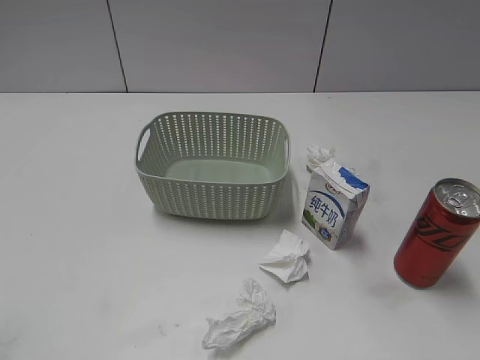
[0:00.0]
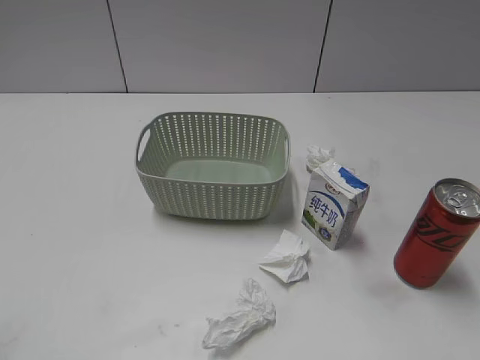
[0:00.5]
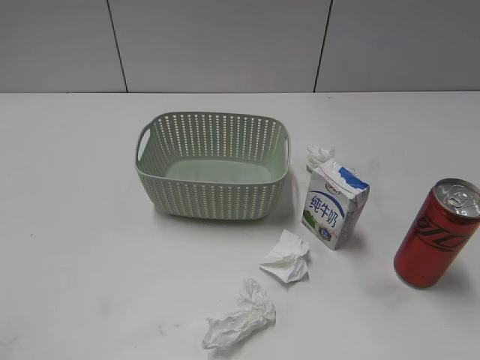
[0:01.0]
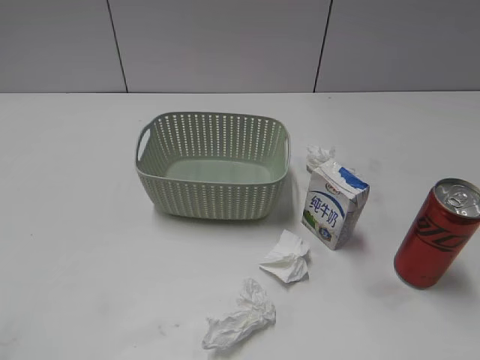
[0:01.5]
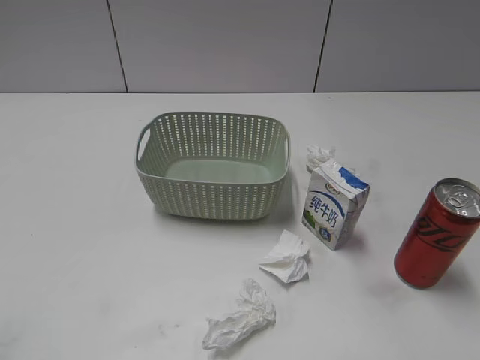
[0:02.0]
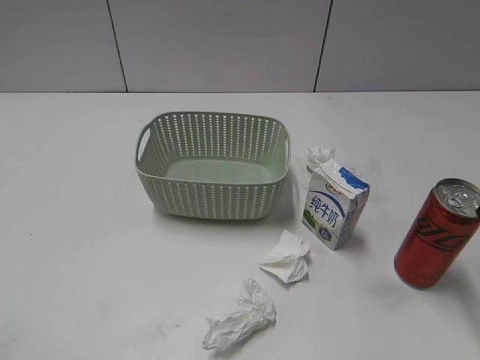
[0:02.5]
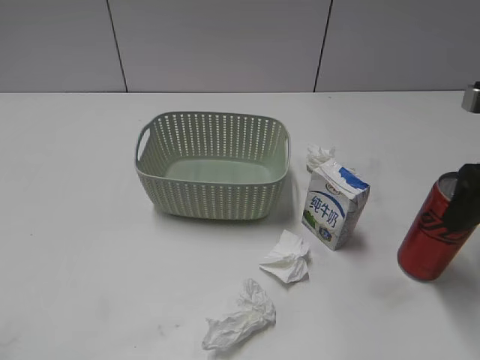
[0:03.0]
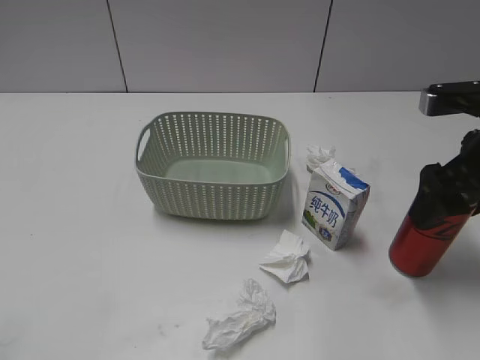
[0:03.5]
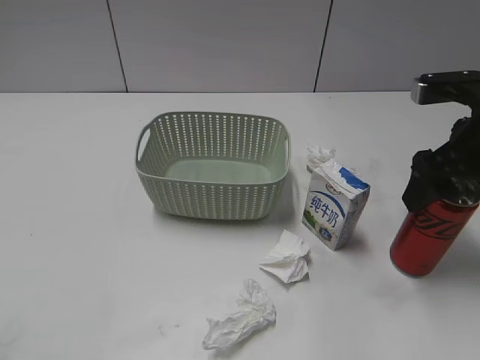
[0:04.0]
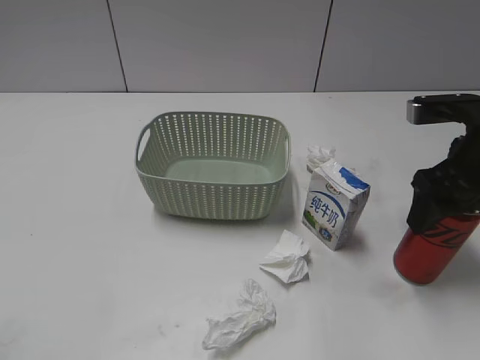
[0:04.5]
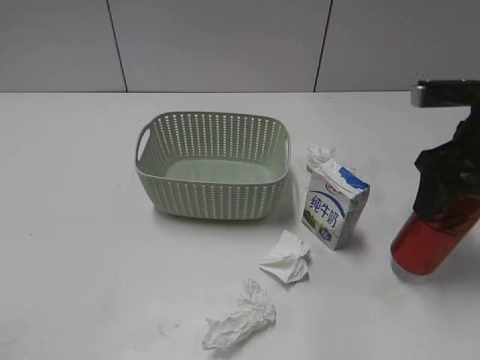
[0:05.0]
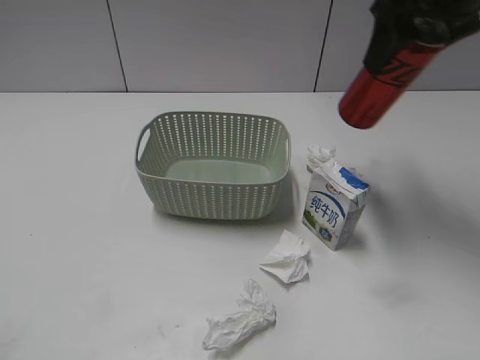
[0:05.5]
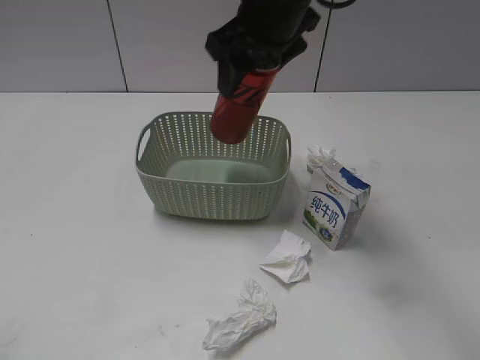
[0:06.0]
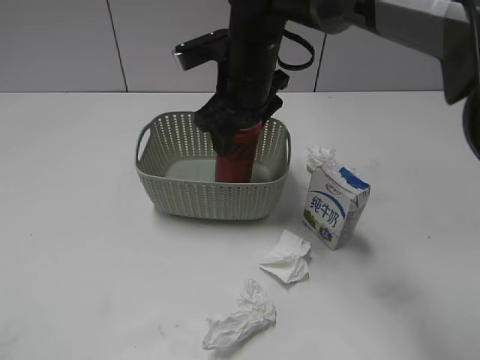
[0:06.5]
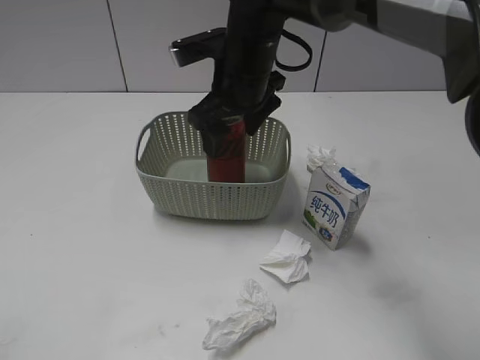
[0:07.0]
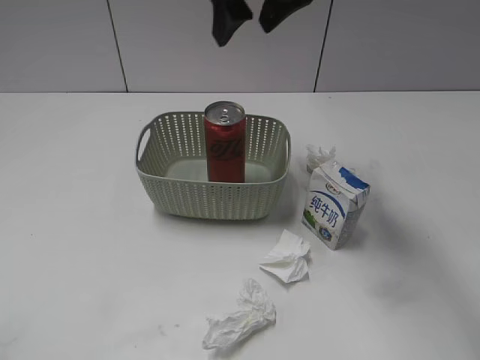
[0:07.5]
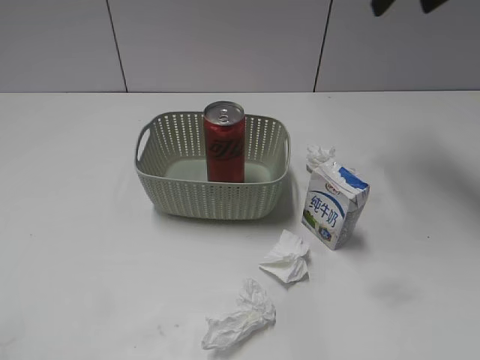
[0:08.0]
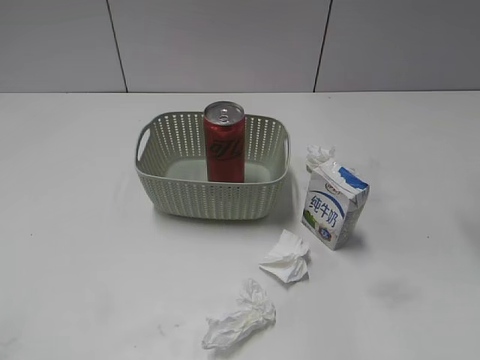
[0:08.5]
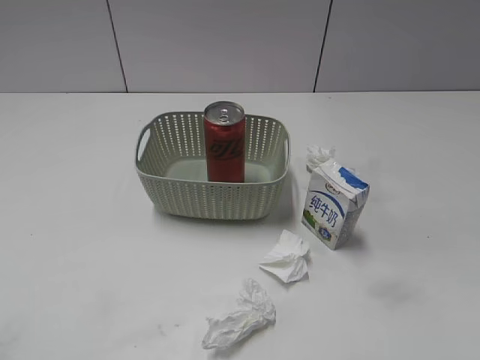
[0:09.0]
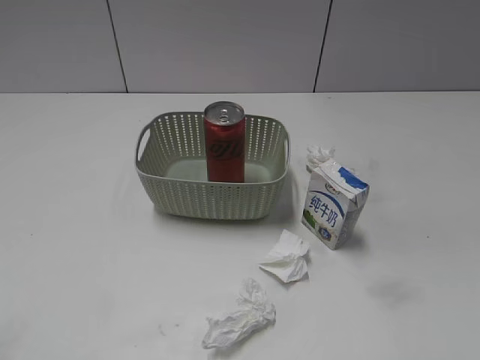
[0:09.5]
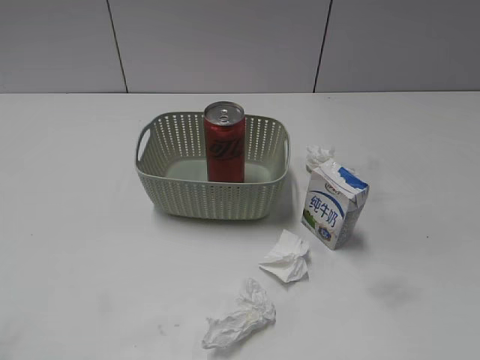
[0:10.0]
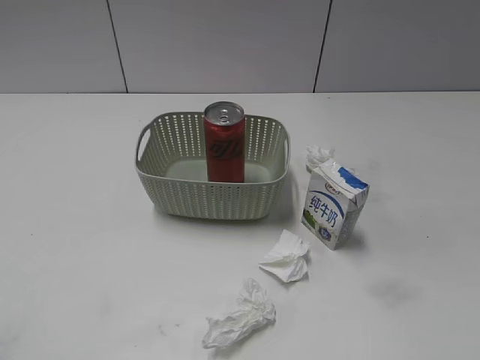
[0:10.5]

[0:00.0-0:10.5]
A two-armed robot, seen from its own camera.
Step, 0:03.0 to 0:04.5: Grasp the cola can with right gripper.
Step, 0:05.0 to 0:07.0: Place the cola can in the basket with right gripper.
0:02.0 to 0:04.0: The right gripper shifts about 15 cm forward.
0:04.0 to 0:06.5: The right gripper moves to the left and forward, some 25 cm, and closes up.
0:06.5 to 0:08.5: The right gripper goes approximately 30 cm to the right and upward, and opens.

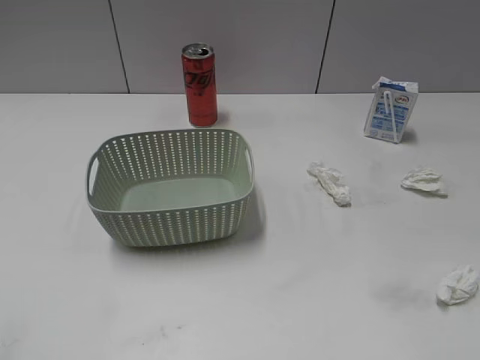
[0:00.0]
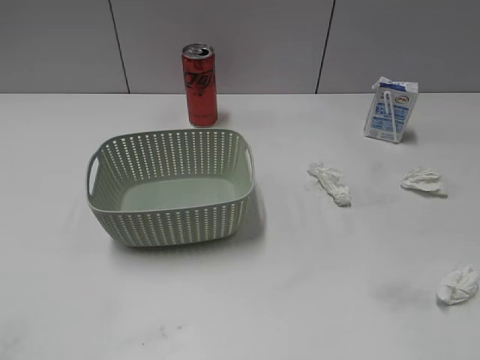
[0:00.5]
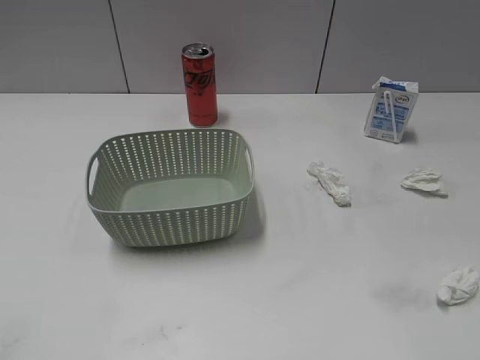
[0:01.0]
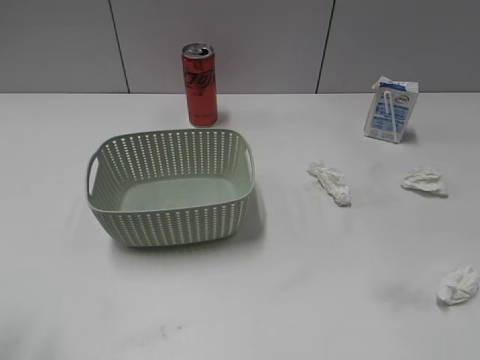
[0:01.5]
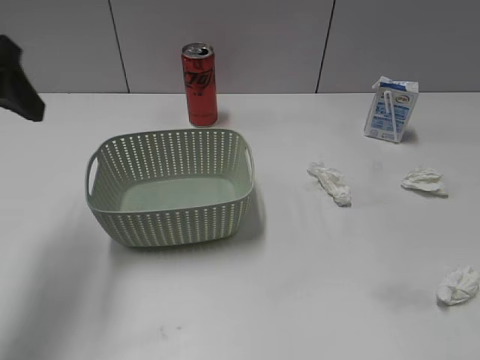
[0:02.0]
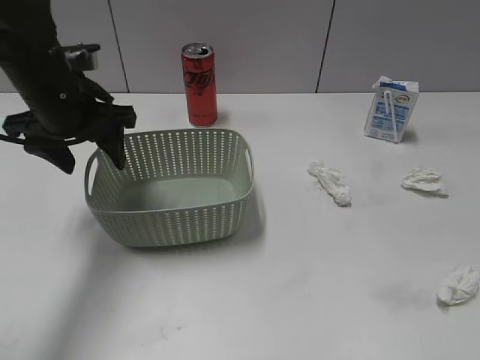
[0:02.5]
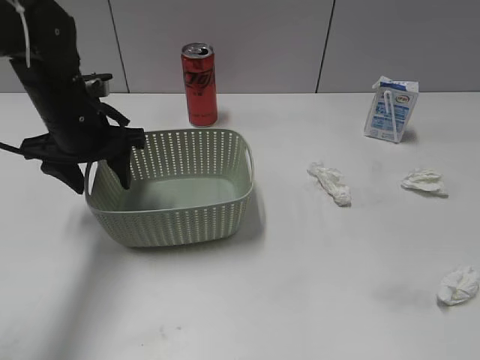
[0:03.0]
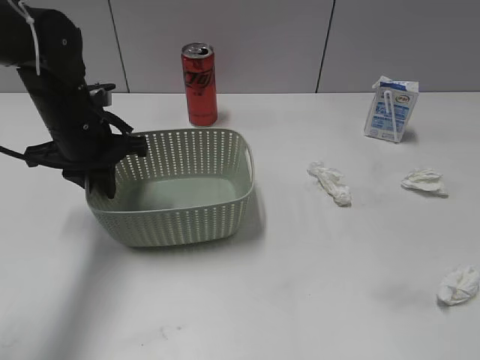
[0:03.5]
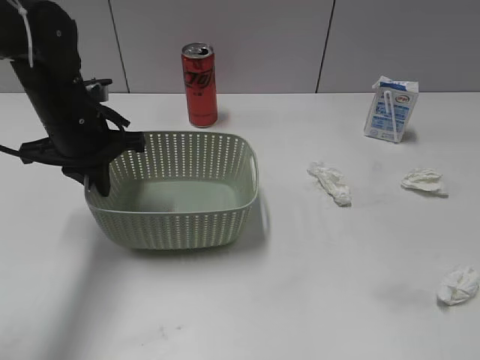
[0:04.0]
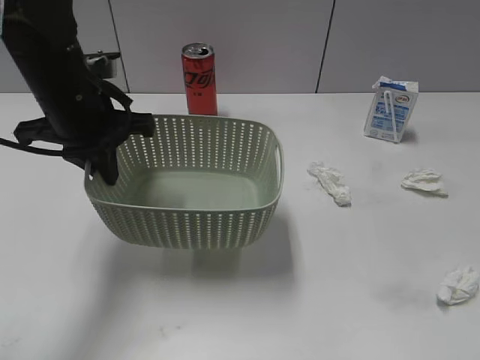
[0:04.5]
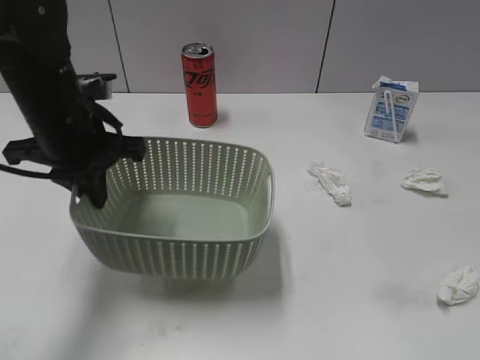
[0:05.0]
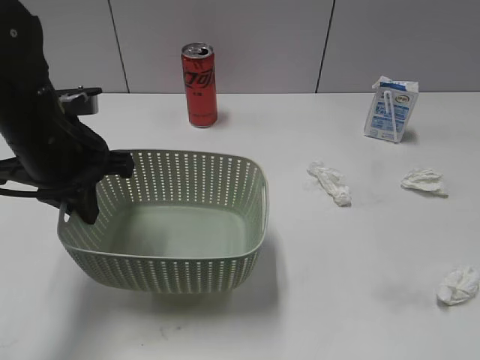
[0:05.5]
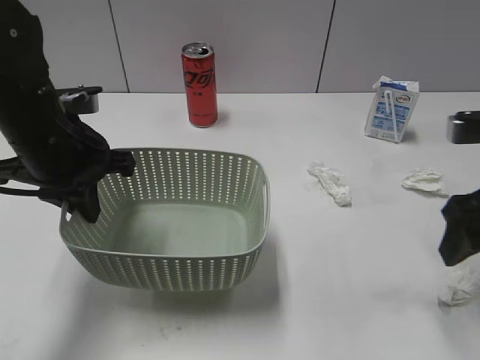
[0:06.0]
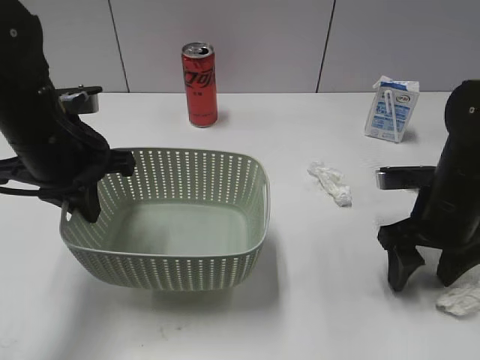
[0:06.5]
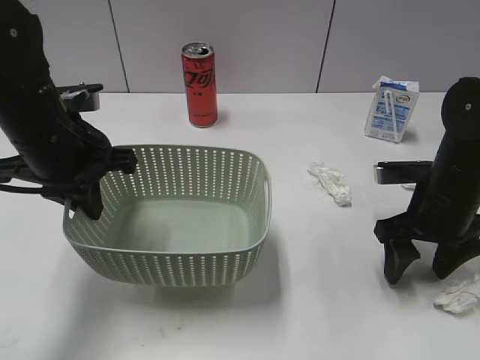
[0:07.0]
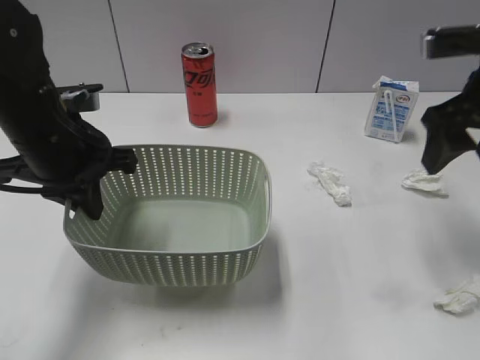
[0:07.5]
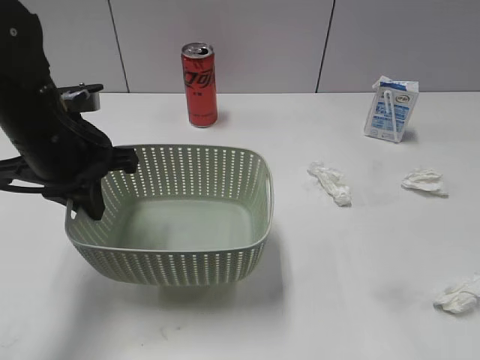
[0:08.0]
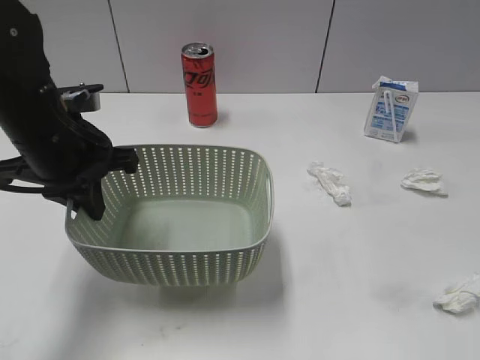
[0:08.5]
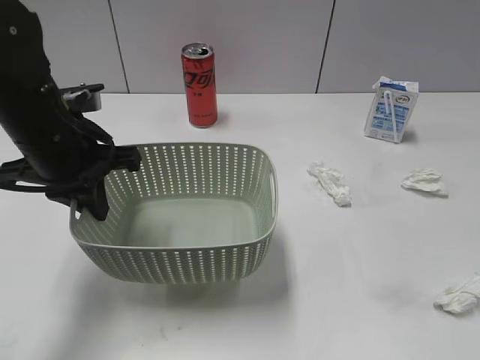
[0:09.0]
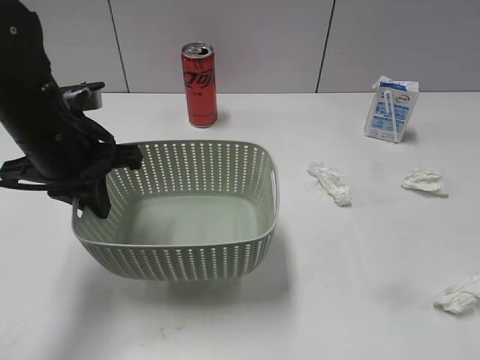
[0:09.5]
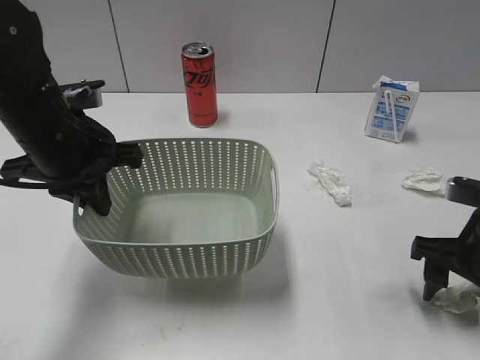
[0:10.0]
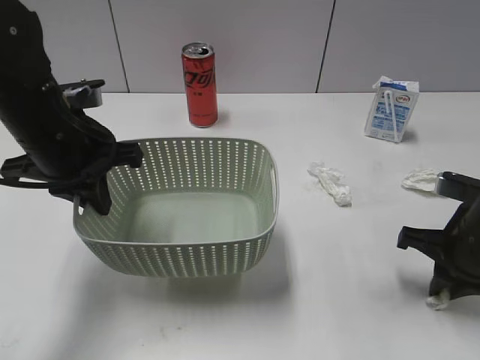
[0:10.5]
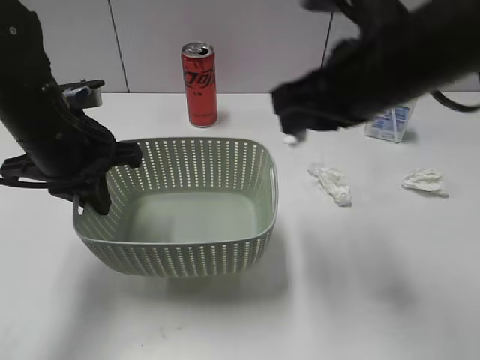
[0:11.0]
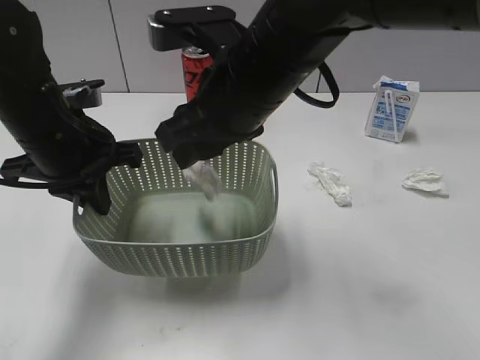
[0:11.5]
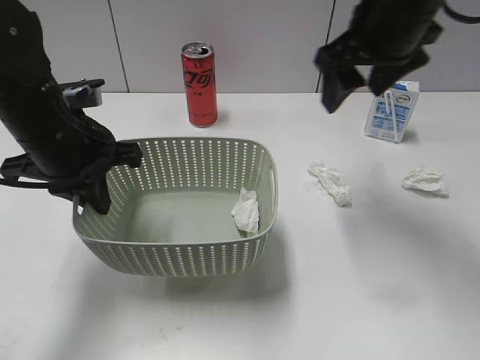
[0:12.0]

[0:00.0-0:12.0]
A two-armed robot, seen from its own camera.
Step, 0:02.0 to 0:03.5: Grasp the basket with left gripper.
Step, 0:04.0 to 0:05.0: Lift the basket with left gripper.
Step, 0:05.5 to 0:10.5: Grasp the waste paper with right gripper.
Step, 0:11.0 to 0:11.5: Place the waste paper in the basket with right gripper.
0:02.0 to 0:04.0: The left gripper is displaced downward, forward and to the right by roughly 20 cm, and closes.
0:04.0 to 0:06.0: The right gripper travels forward by some 25 cm. The left gripper is displaced backward by some 5 cm.
0:06.0 to 0:08.0: The right gripper goes about 15 cm upward and backward.
0:08.0 to 0:10.0: The right gripper goes about 20 cm downward, and reaches about 15 cm backward, then returns.
0:10.0 to 0:12.0: The right gripper shifts roughly 25 cm upward, to the left and forward, and closes and opens again.

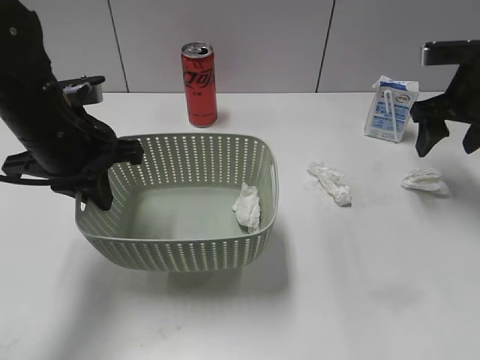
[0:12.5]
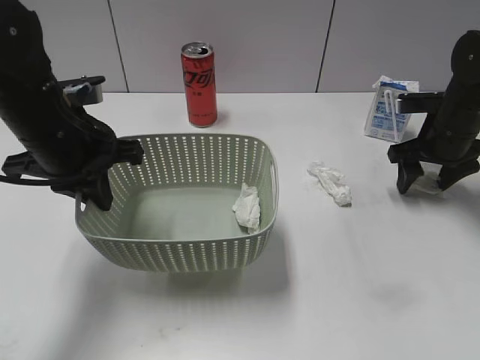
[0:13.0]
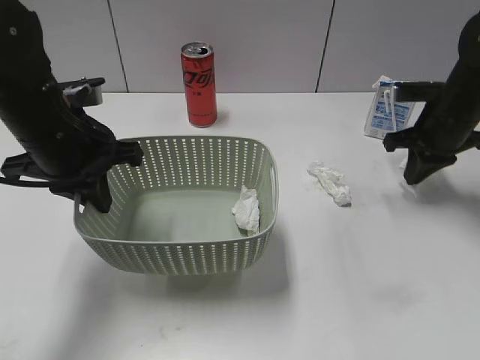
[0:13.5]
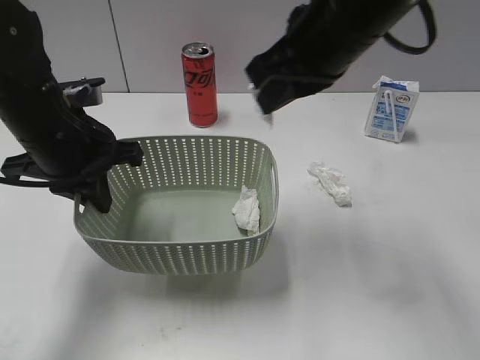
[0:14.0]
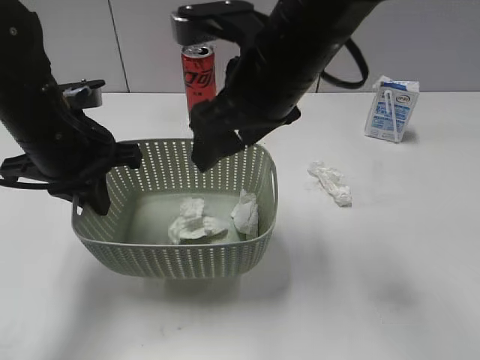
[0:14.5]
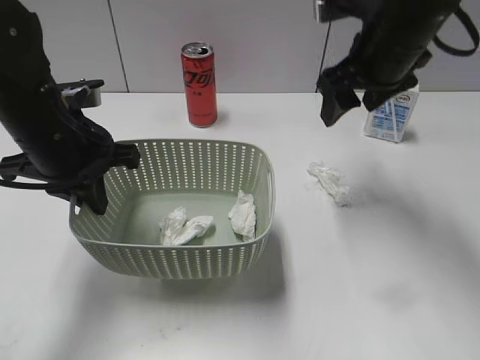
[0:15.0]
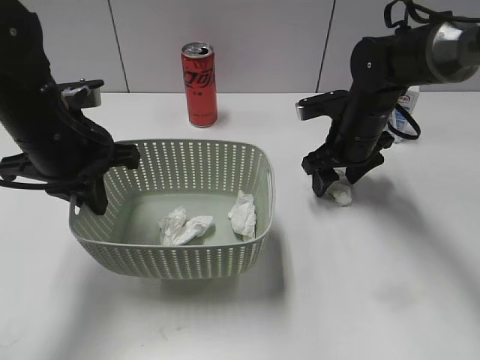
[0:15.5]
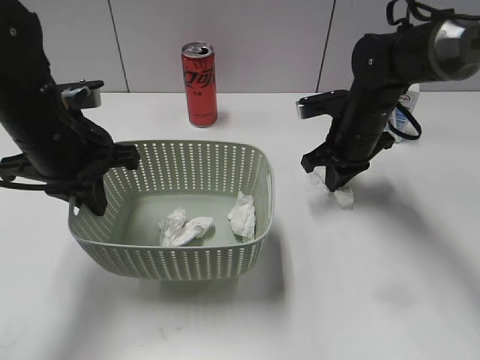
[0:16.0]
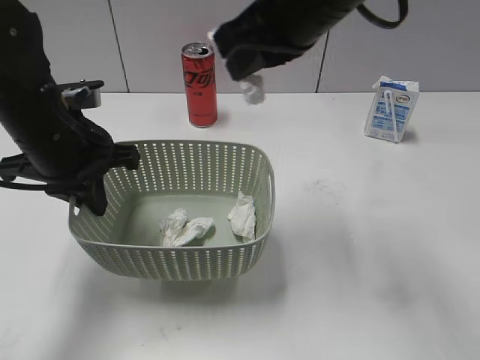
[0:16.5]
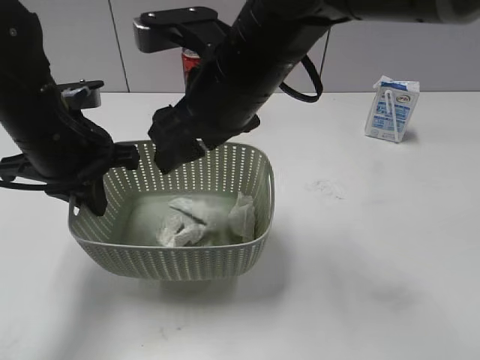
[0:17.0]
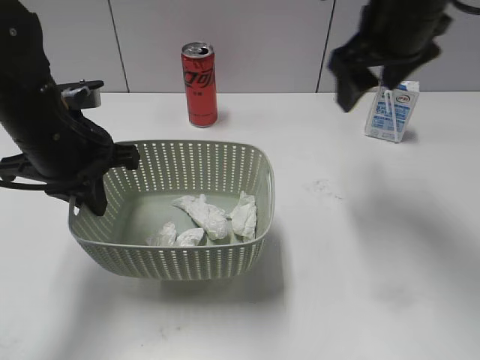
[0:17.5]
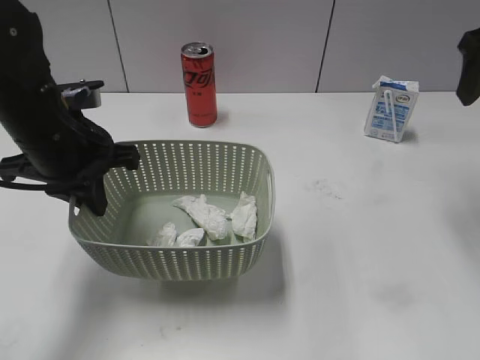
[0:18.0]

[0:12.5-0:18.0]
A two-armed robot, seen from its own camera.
Step, 0:13.5 to 0:14.5: Place the waste paper in the basket with right gripper.
Step, 0:15.0 to 0:16.0: Grasp the waste paper with right gripper.
Step, 0:16.5 to 0:17.0: Place the waste paper in the basket with right gripper.
0:12.5 to 0:14.5: The right gripper is displaced to the left and backward by about 25 cm, and closes and opens again.
0:14.5 to 0:16.0: The right gripper is displaced downward, to the right and forward by about 25 cm, and closes up.
0:16.0 to 0:18.0: The right gripper heads upward and to the right, covering approximately 25 cm, and opens.
